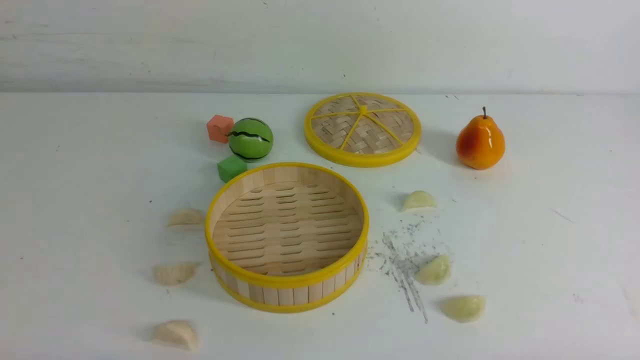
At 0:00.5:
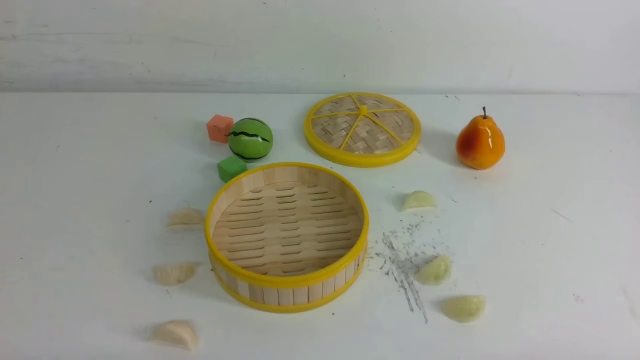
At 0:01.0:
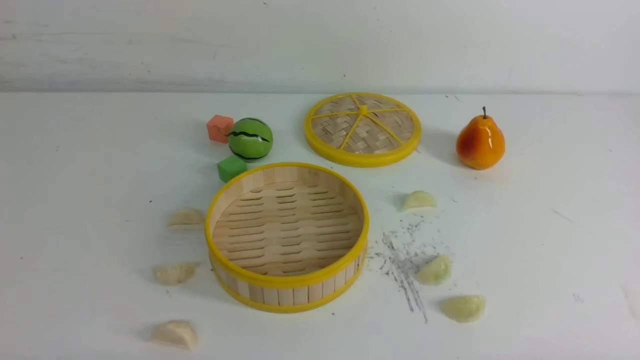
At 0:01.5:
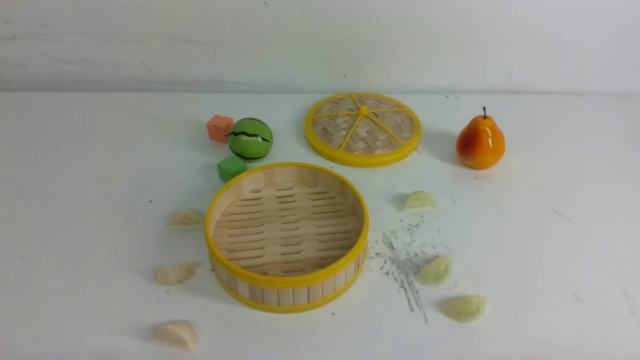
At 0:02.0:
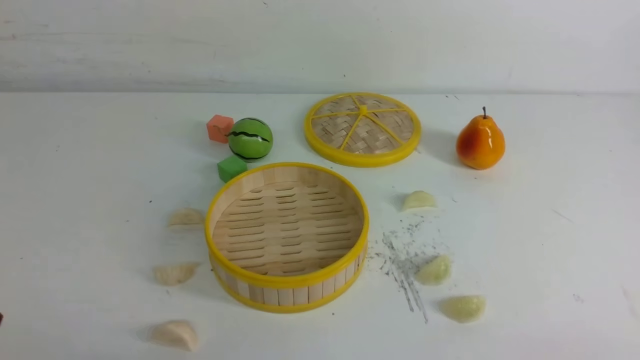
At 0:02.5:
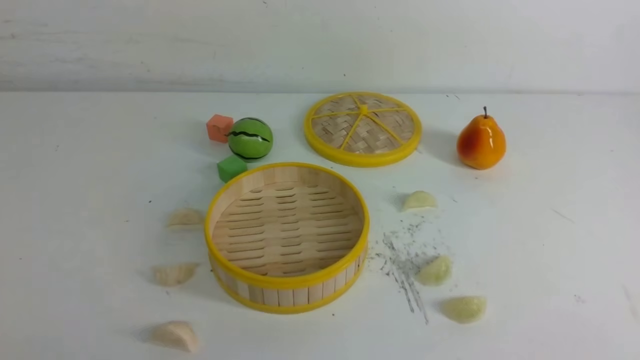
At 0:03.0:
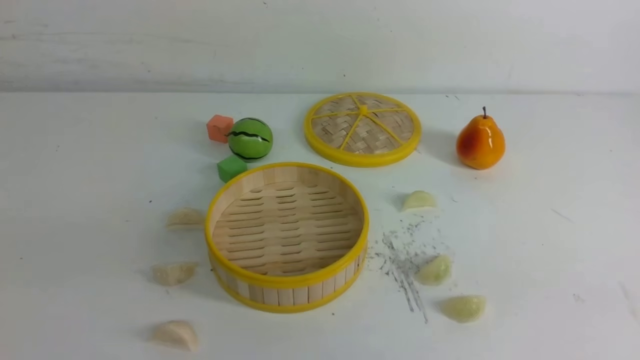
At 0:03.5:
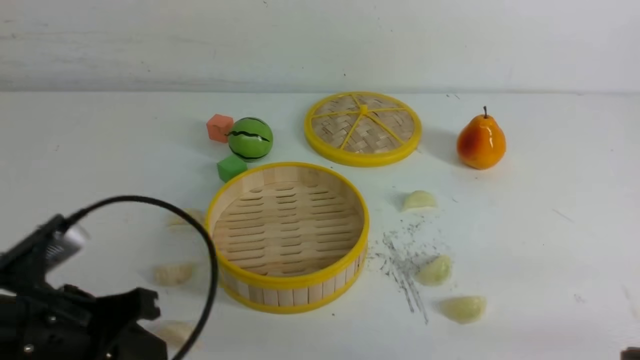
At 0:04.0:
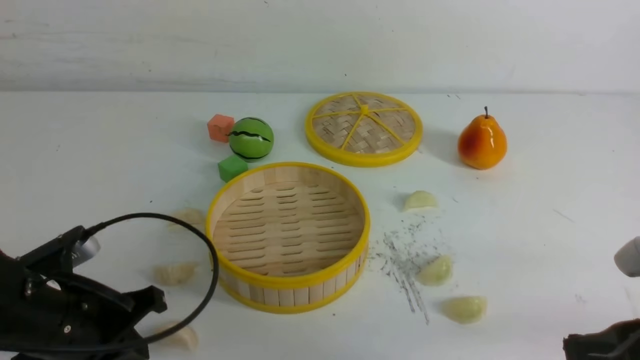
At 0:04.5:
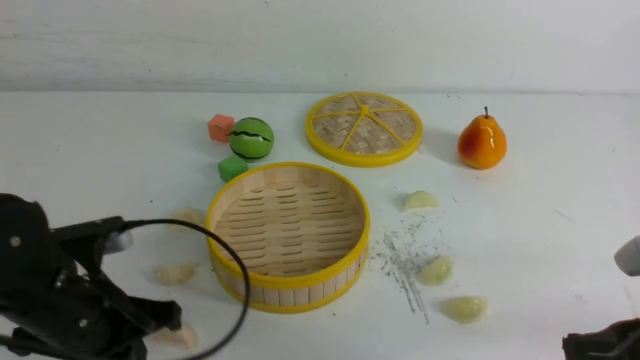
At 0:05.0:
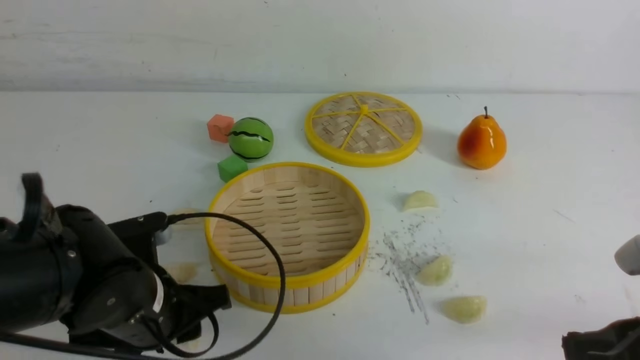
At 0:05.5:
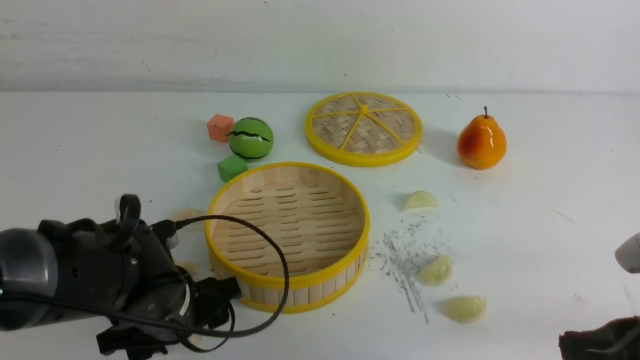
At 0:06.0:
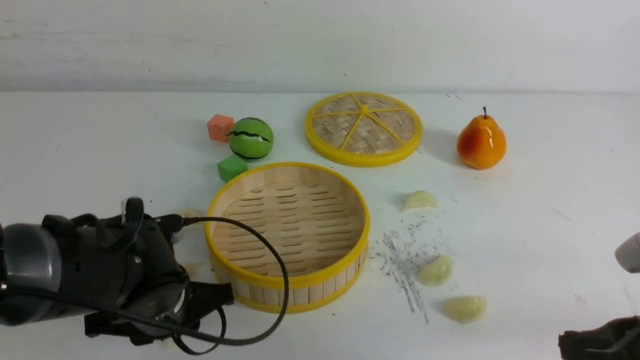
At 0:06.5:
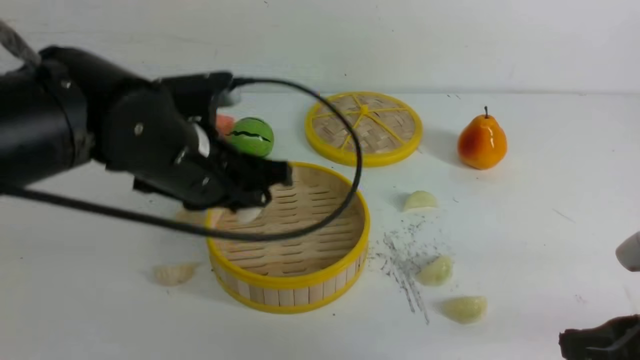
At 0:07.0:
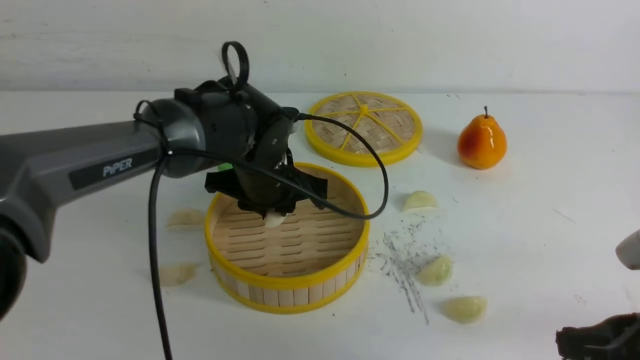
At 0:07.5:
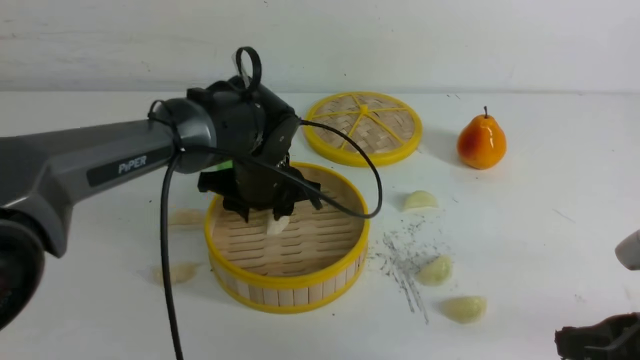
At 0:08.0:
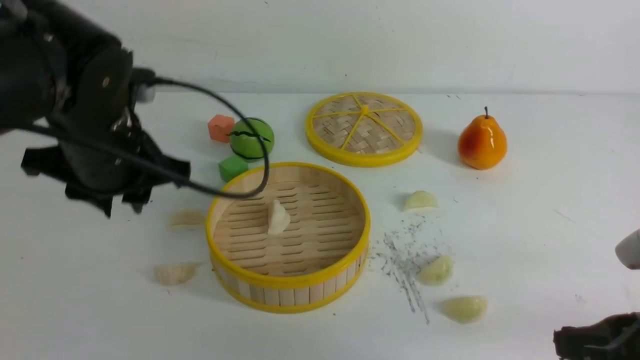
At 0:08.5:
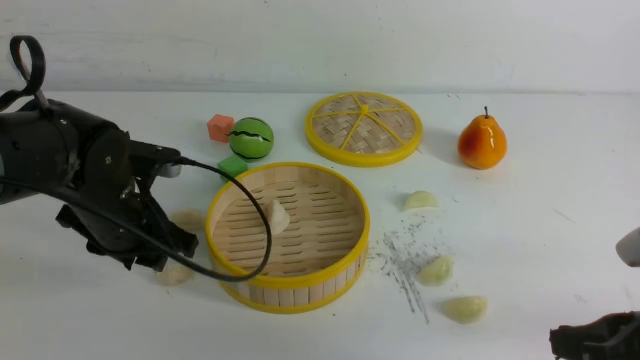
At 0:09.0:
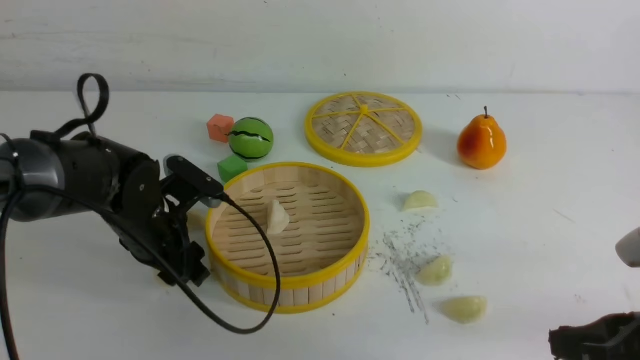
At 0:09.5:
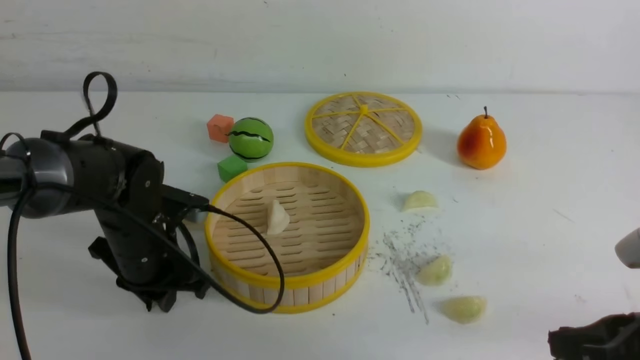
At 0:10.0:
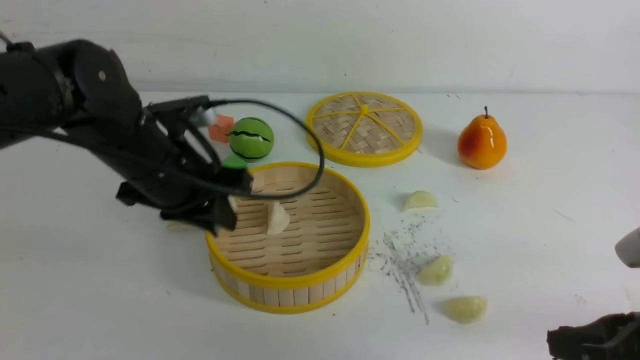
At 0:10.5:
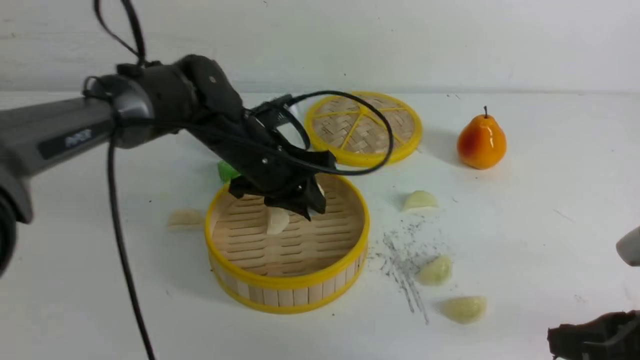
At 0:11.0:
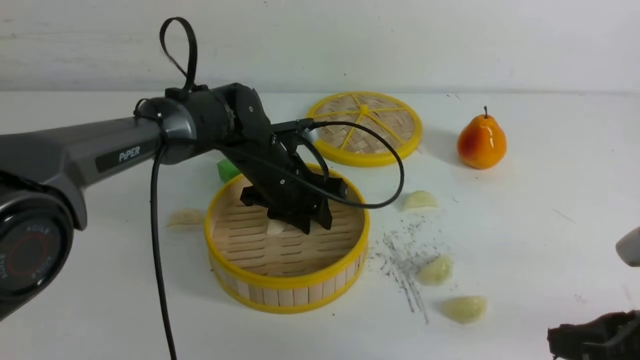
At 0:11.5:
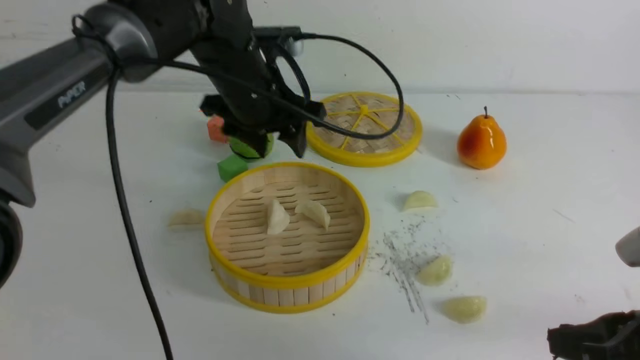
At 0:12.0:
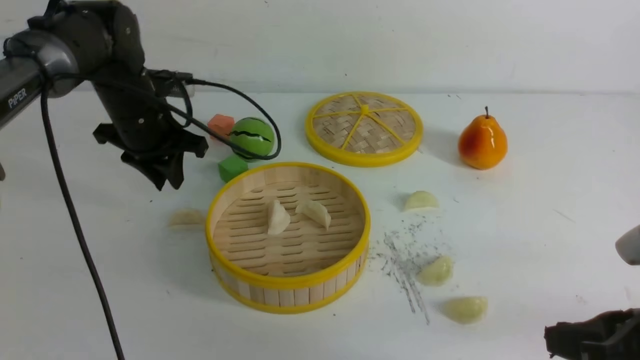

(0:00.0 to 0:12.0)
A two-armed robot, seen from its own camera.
Task of the whole recording: put the dumplings into the steamer on the white table.
Step, 0:00.0 - 0:06.0: use the left arm to grab a dumpling.
Step, 0:06.5 - 0:07.5: use the left arm to put the dumpling into the steamer.
Step, 0:08.0 - 0:09.5: use the left arm to grab a dumpling.
Step, 0:10.0 - 0:11.0: use the left arm to put the dumpling into the steamer.
0:02.0 - 0:04.0: The left gripper moves forward, roughly 15 cm, and closes its fingers, while the right gripper heads forward, covering roughly 10 cm.
0:04.0 - 0:06.0: The left gripper shifts some 5 cm to the right, and opens.
0:06.0 - 0:08.0: The left gripper goes some 15 cm upward and forward.
0:08.0 - 0:10.0: The left gripper goes downward and returns, some 10 cm each way.
0:10.0 - 0:12.0: The left gripper shifts about 15 cm forward and to the left, and opens and closes again.

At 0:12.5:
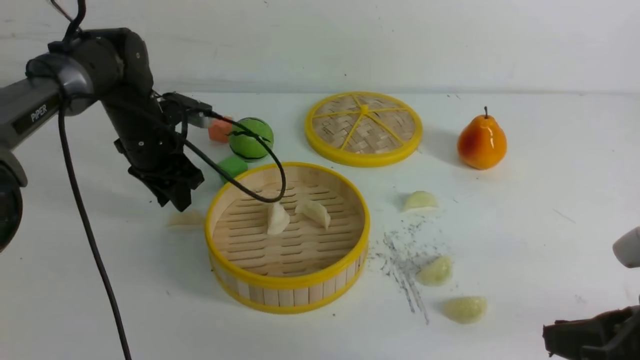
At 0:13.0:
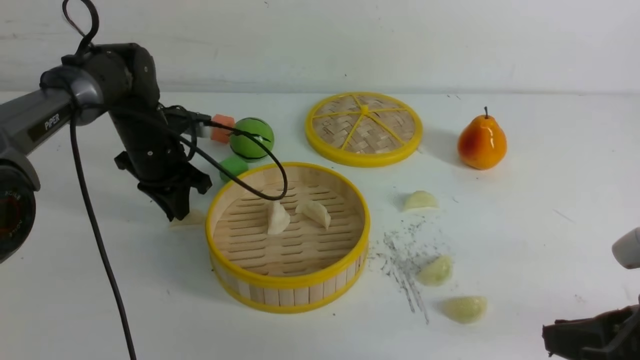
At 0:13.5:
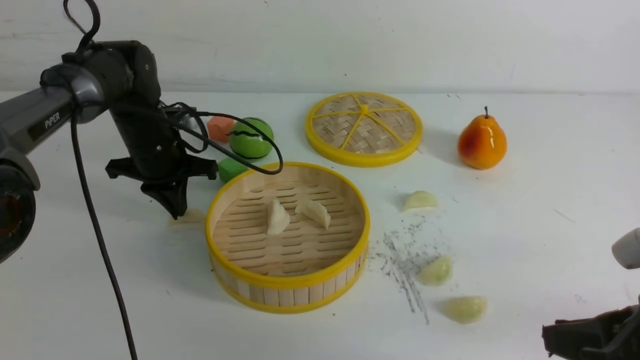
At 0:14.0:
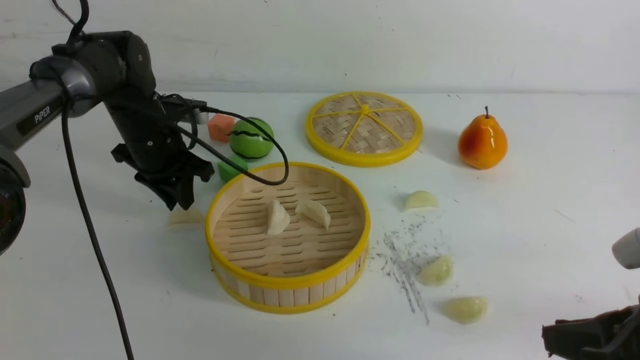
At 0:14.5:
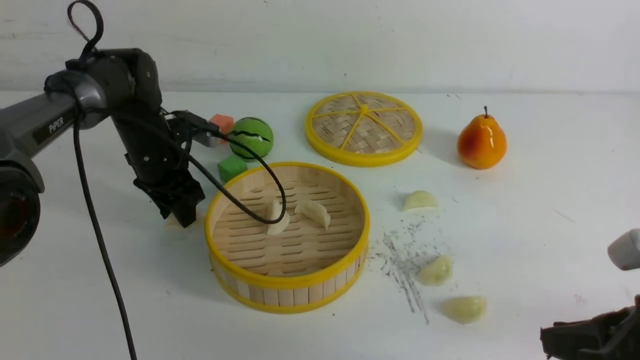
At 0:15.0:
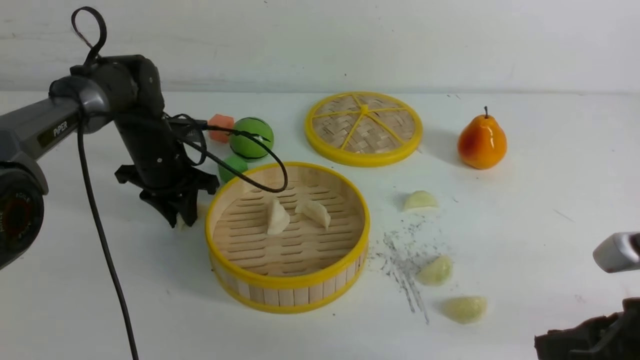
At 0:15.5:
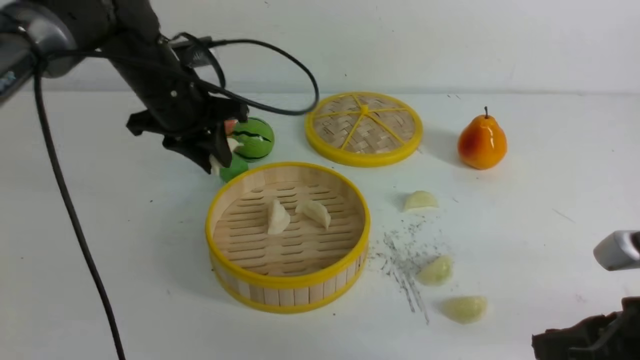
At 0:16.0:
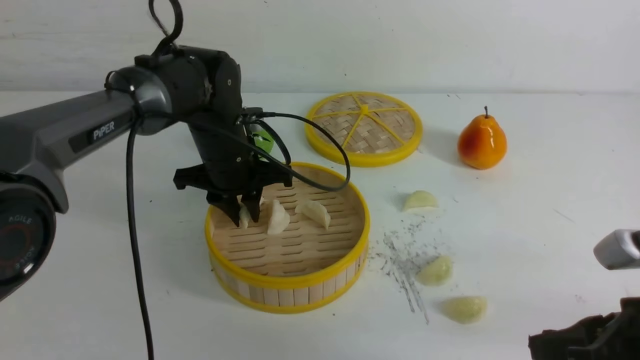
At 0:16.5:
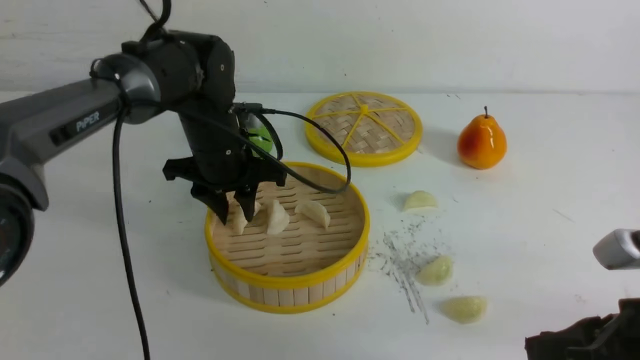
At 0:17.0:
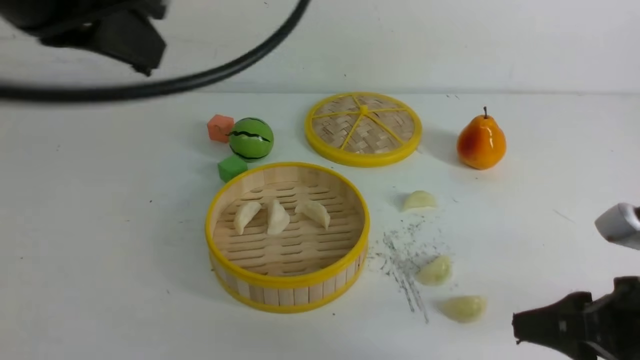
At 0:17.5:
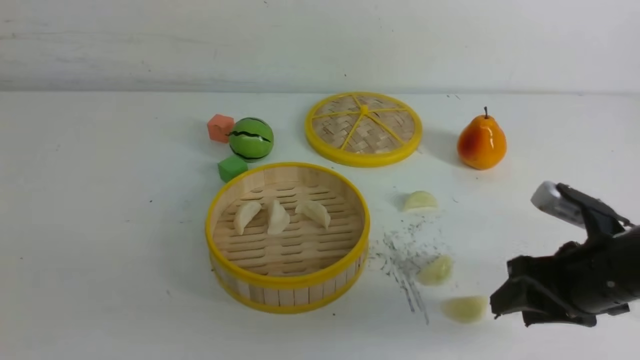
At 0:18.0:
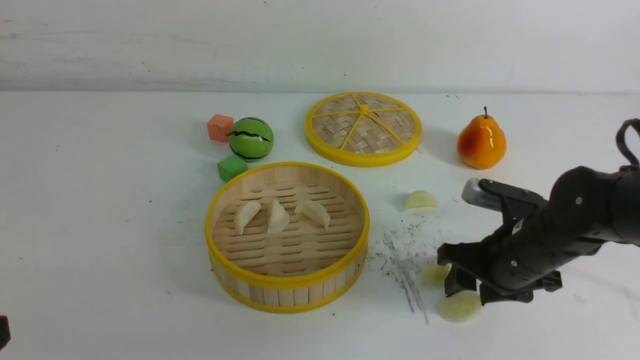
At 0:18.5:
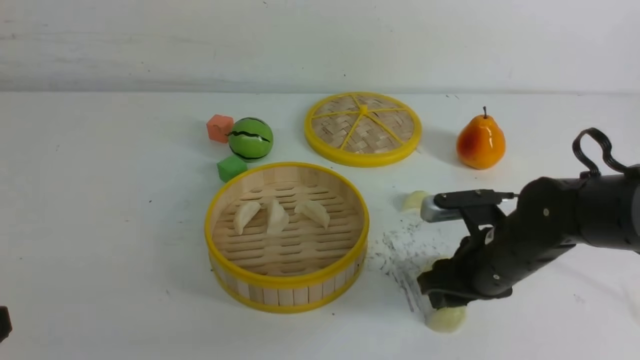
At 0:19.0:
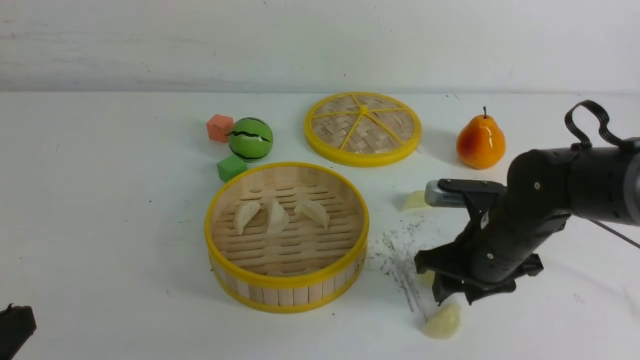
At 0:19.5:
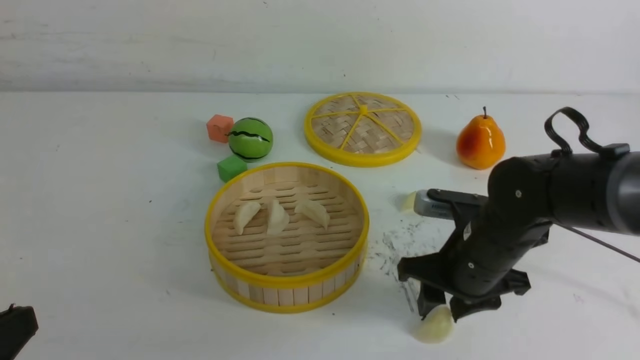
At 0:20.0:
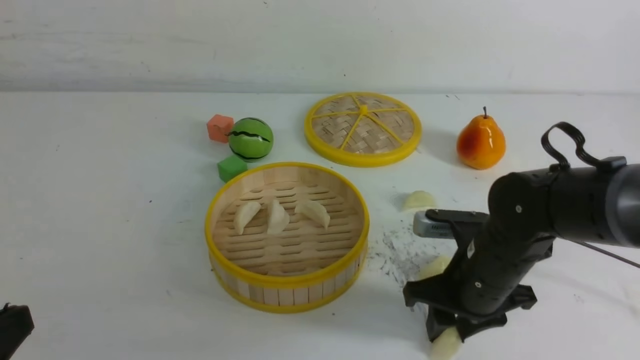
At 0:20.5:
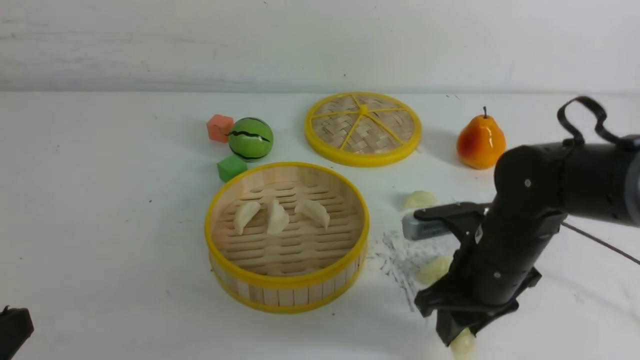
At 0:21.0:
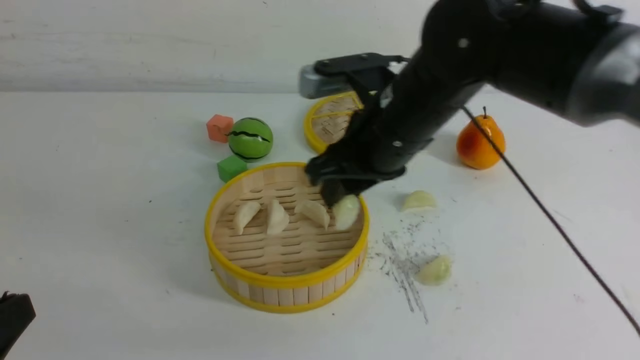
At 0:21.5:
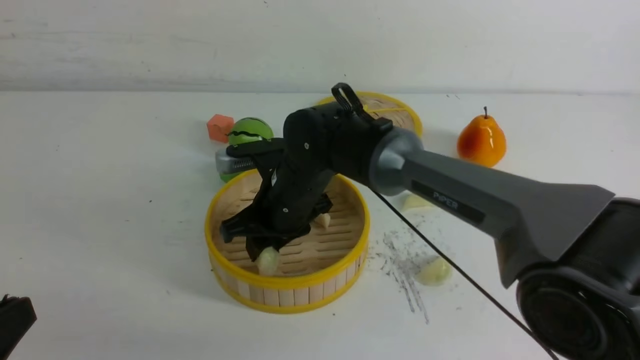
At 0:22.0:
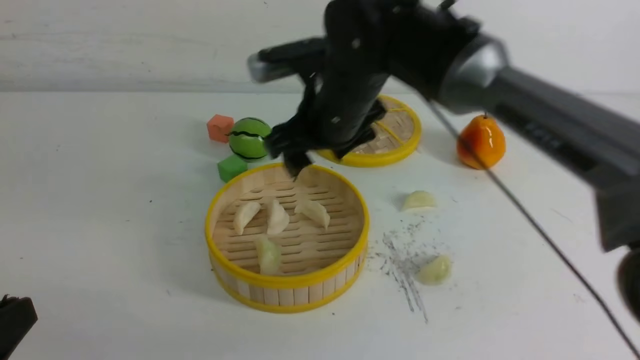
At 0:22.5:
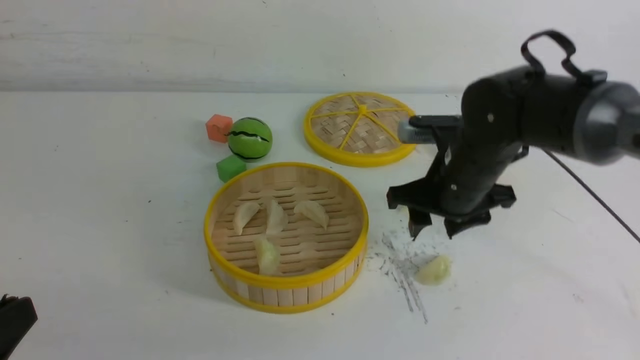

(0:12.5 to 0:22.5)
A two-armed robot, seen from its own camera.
Task of the whole recording: put the dumplings into the steamer on the white table.
Step, 0:12.5 - 0:15.0: use the left arm to grab a dumpling.
Step, 0:15.5 - 0:16.5: use the left arm to put the dumpling into the steamer.
Step, 0:17.0 - 0:20.5: use the right arm to grab a dumpling.
Step, 0:21.0 - 0:21.5: use the right arm to put the dumpling into the steamer.
0:12.5 - 0:14.5: The left gripper closes and opens again.
0:14.5 - 0:16.5: The left gripper travels to the right, upward and backward by about 15 cm.
0:16.5 - 0:18.5: The left gripper moves backward and to the left, some 35 cm, and closes; the right gripper moves forward, to the left and downward, approximately 20 cm, and opens up.
0:18.5 - 0:20.5: The right gripper changes place by roughly 5 cm.
0:20.5 - 0:22.5: The right gripper travels forward by about 10 cm, and travels to the left and back again, roughly 20 cm each way.
